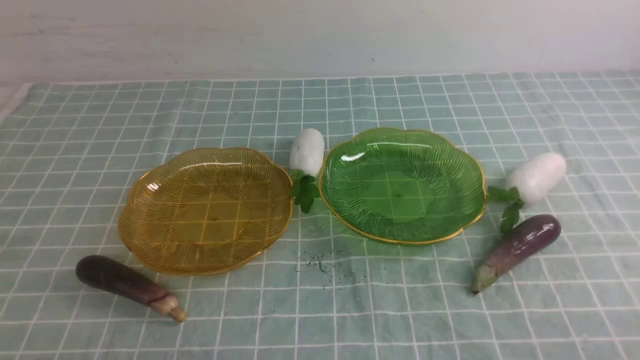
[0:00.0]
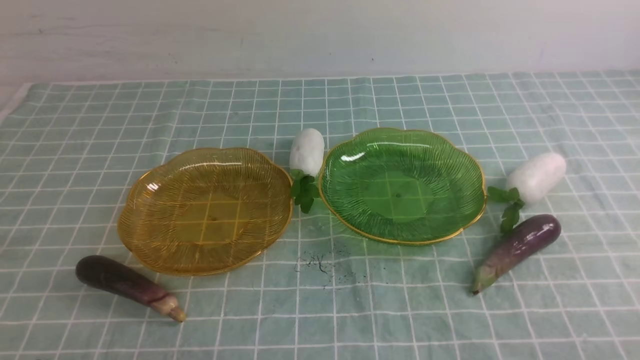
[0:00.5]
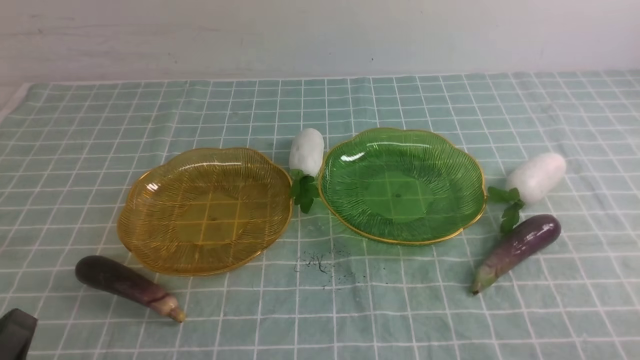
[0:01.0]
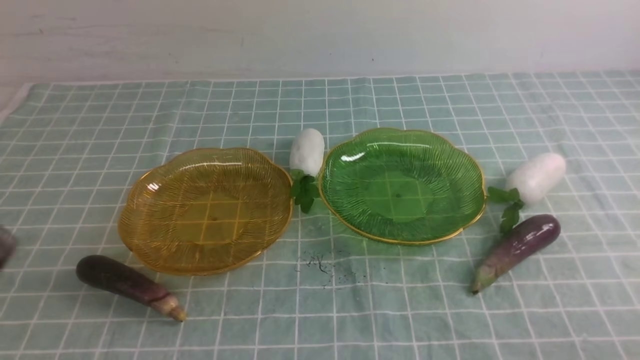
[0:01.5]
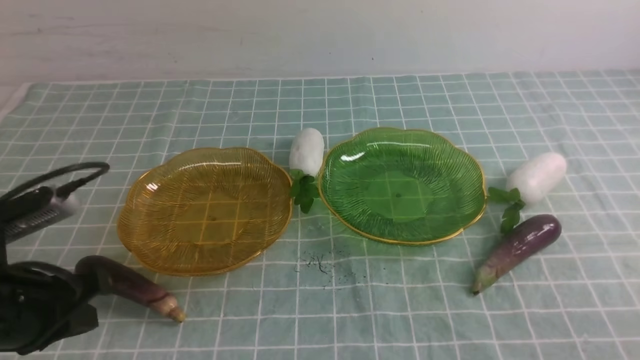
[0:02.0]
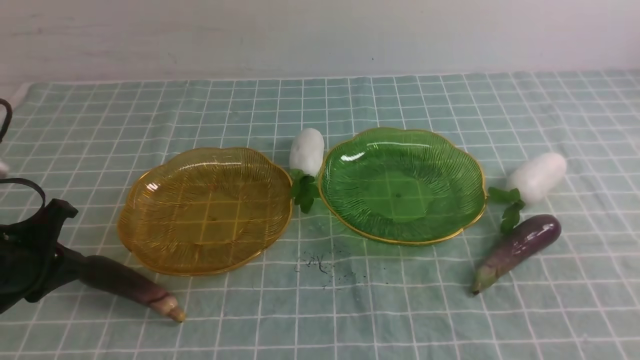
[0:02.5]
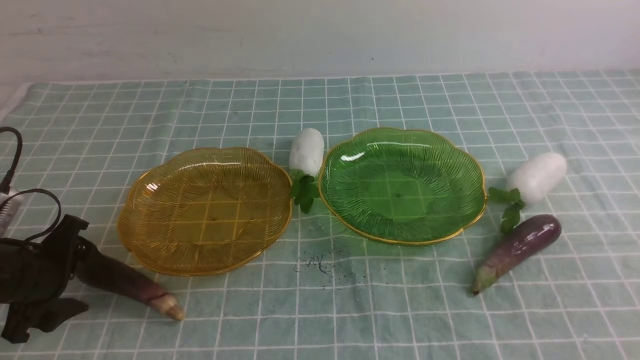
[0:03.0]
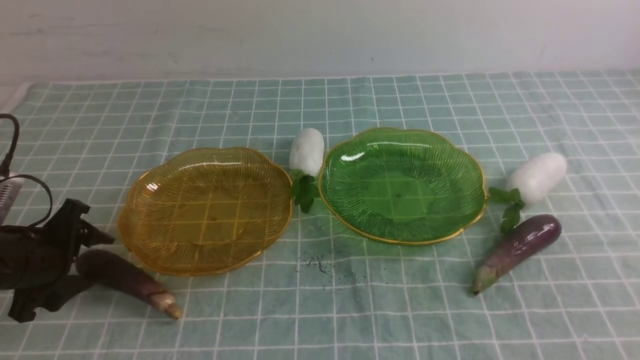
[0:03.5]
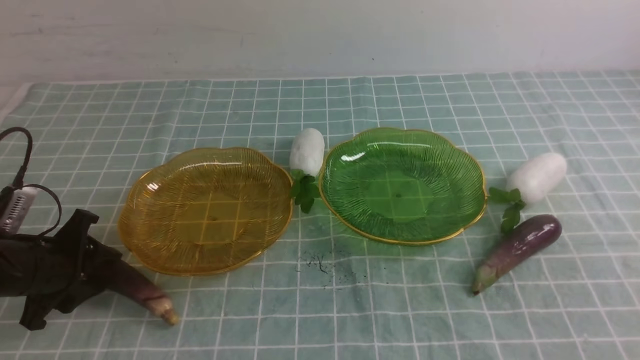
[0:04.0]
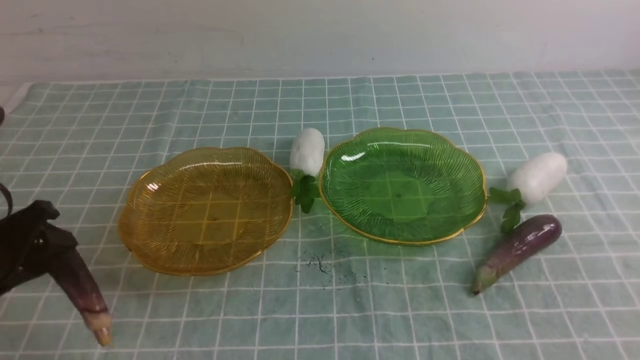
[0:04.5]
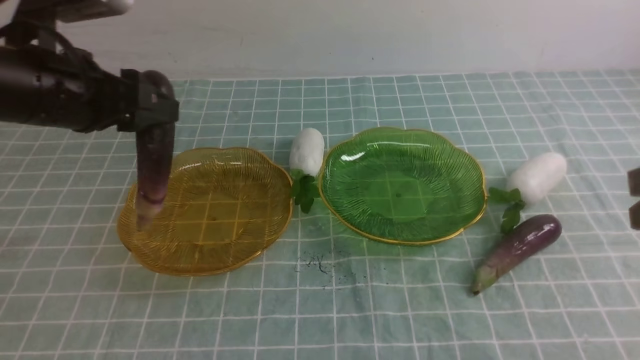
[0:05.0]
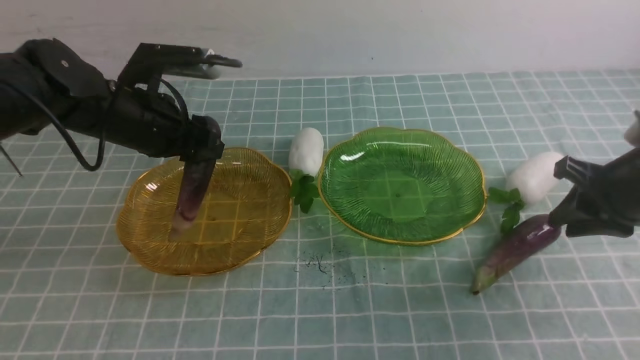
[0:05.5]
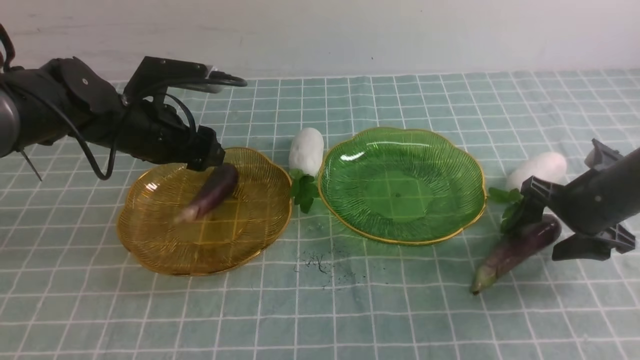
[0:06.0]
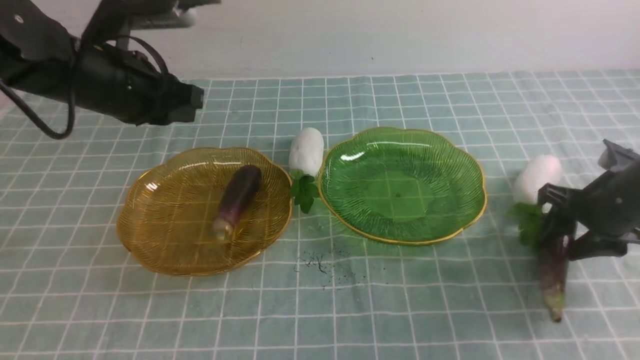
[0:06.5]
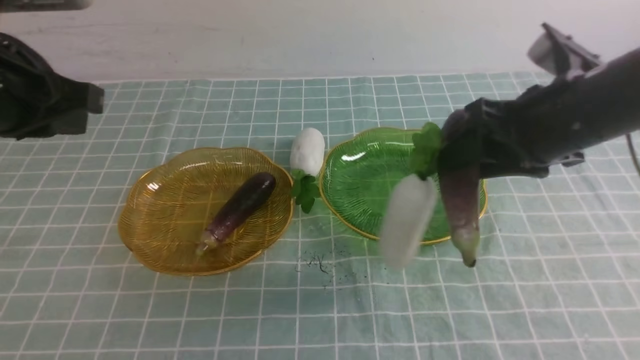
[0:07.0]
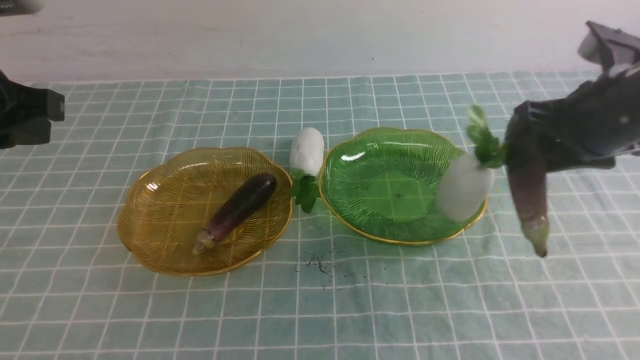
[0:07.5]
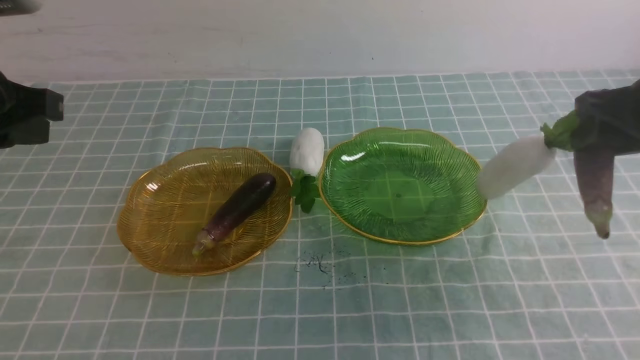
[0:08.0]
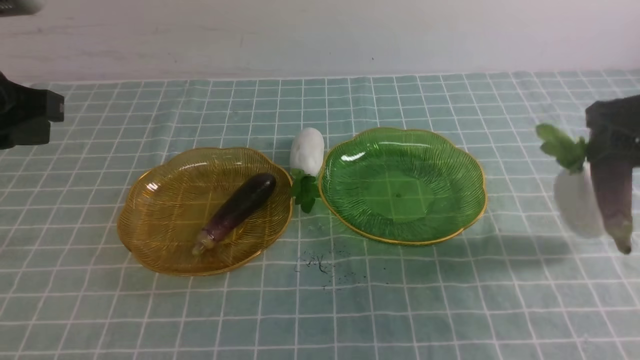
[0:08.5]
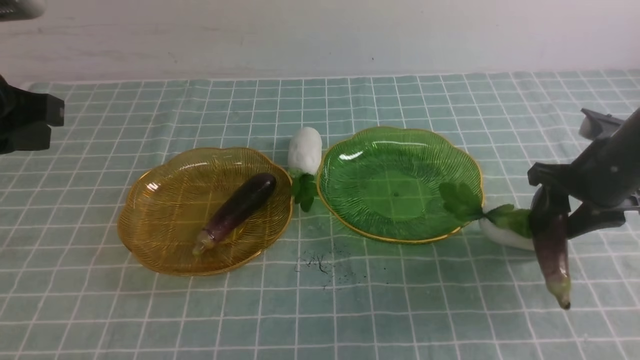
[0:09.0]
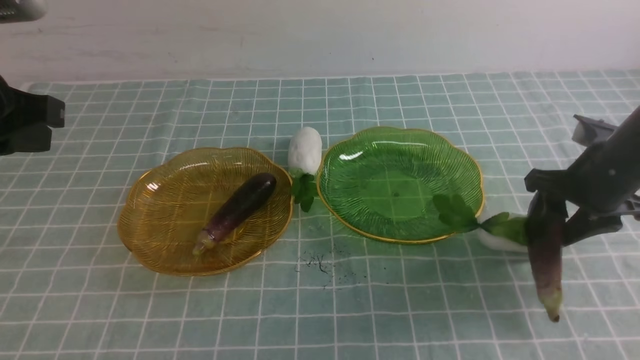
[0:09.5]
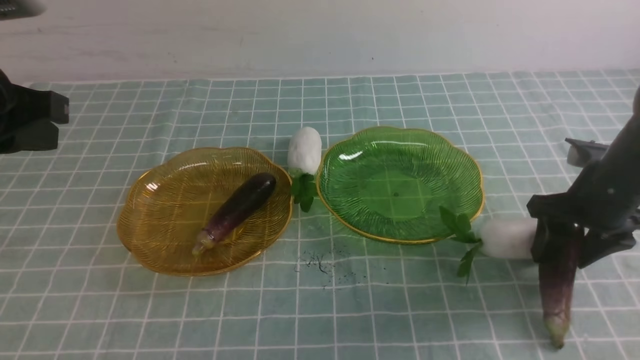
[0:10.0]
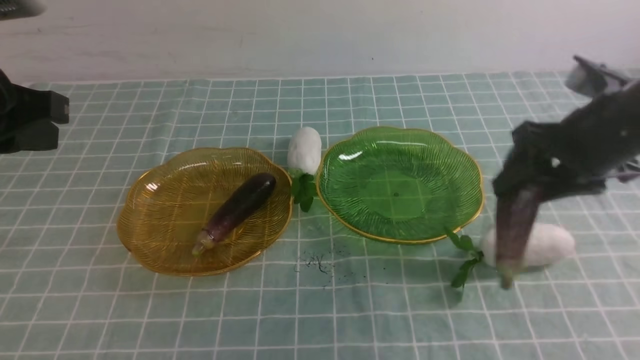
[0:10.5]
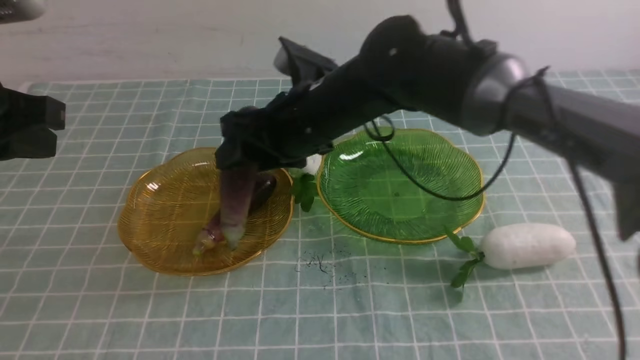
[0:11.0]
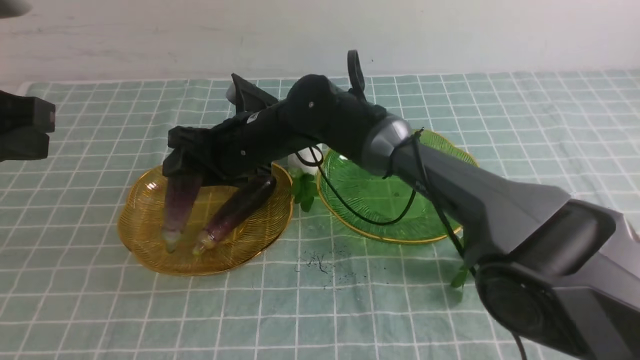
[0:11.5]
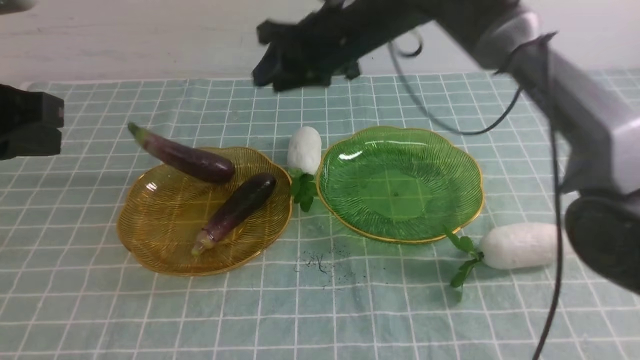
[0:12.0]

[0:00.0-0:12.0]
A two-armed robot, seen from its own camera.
Step, 0:00.0 to 0:06.0: use the left arm to grab an eggplant and put it into the left plate.
Step, 0:06.5 to 0:11.5: use the right arm to grab an eggplant and put it into the left plate.
0:00.0 to 0:02.0: The left gripper shifts roughly 15 cm forward and upward.
0:02.0 to 0:04.0: The left gripper goes some 15 cm downward, forward and to the left, and opens up.
0:04.0 to 0:06.0: The left gripper goes roughly 20 cm forward, to the right and upward; the right gripper travels forward and downward by approximately 30 cm, and opens.
0:06.0 to 0:08.0: The left gripper moves backward, upward and to the left, some 20 cm, and closes its fingers, while the right gripper goes some 15 cm upward.
0:08.0 to 0:10.0: The right gripper is displaced downward by about 10 cm.
0:10.0 to 0:12.0: The right gripper moves to the left and upward, about 30 cm.

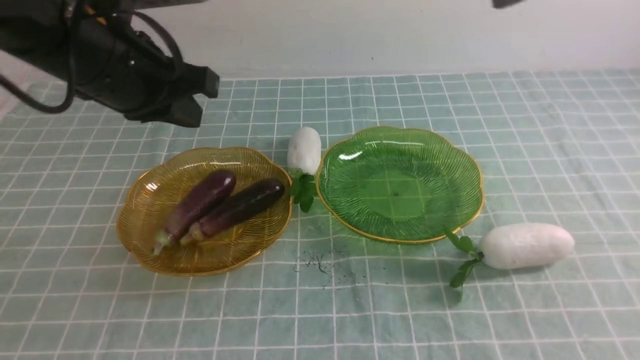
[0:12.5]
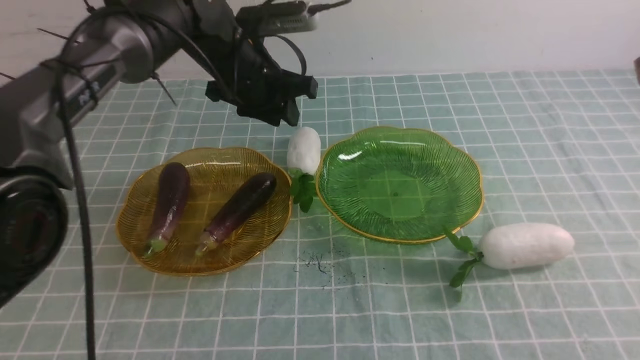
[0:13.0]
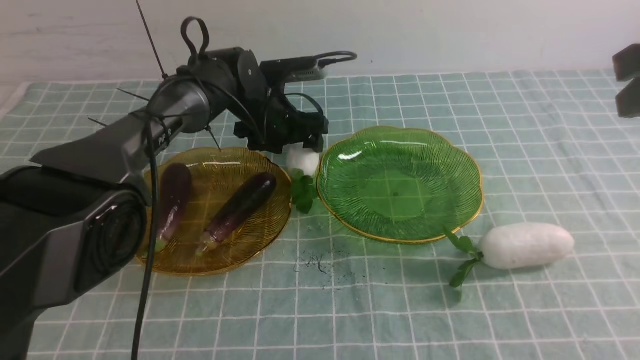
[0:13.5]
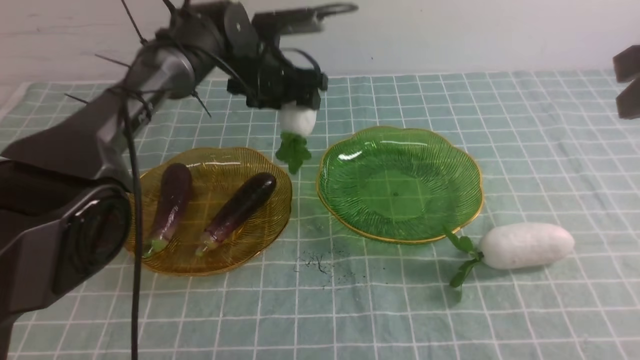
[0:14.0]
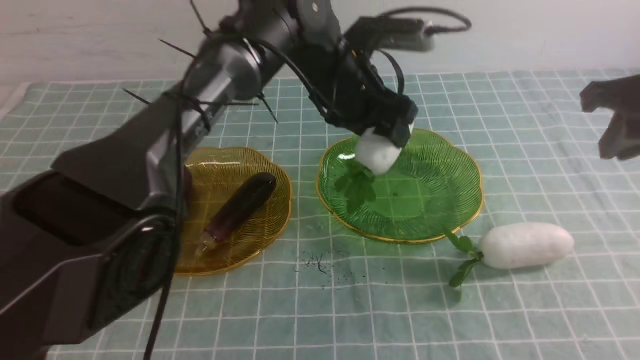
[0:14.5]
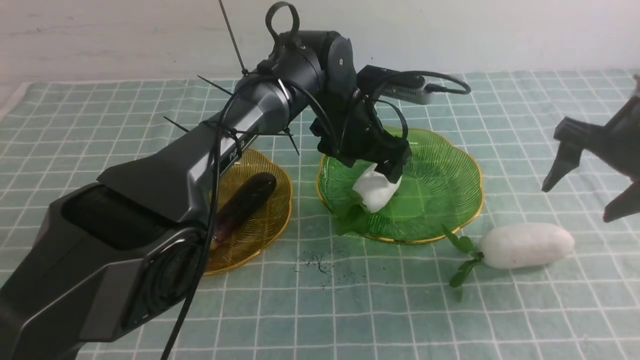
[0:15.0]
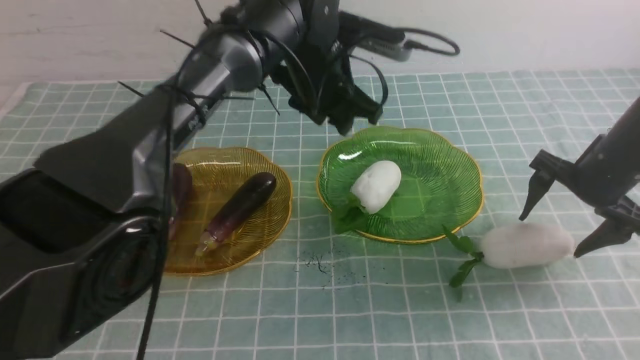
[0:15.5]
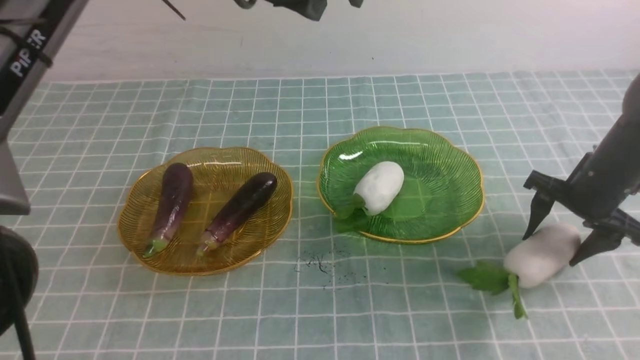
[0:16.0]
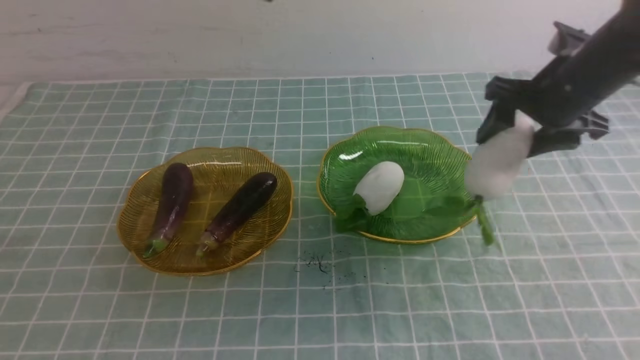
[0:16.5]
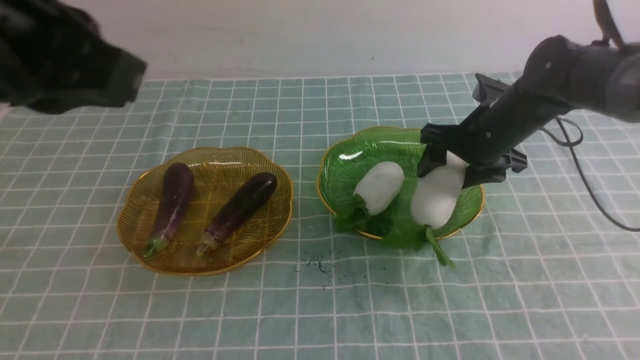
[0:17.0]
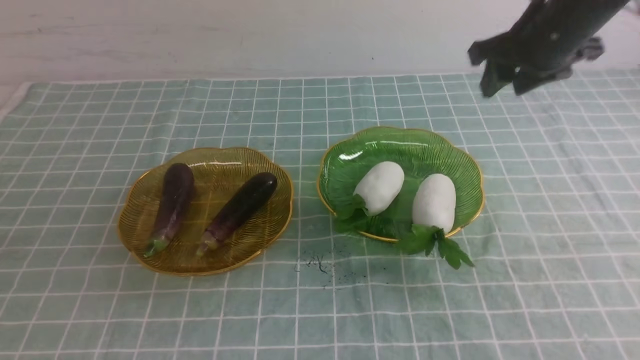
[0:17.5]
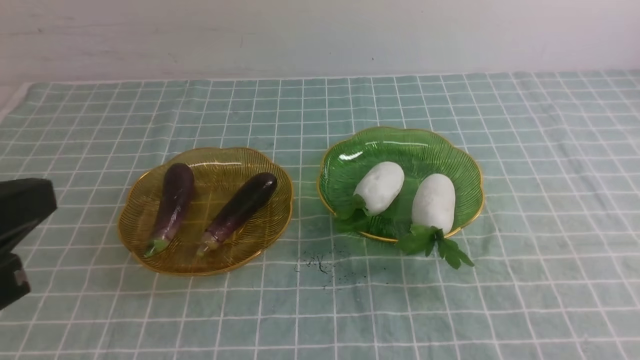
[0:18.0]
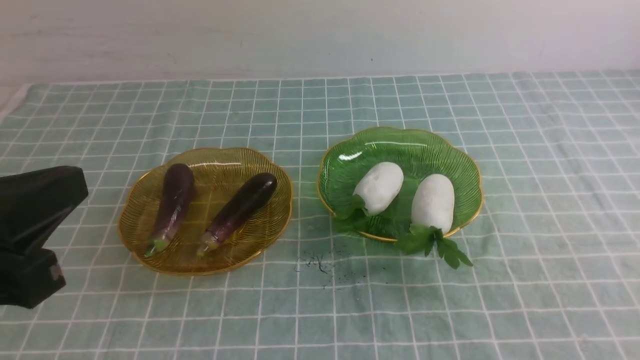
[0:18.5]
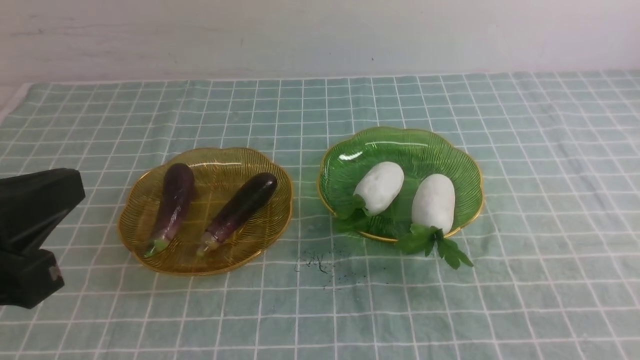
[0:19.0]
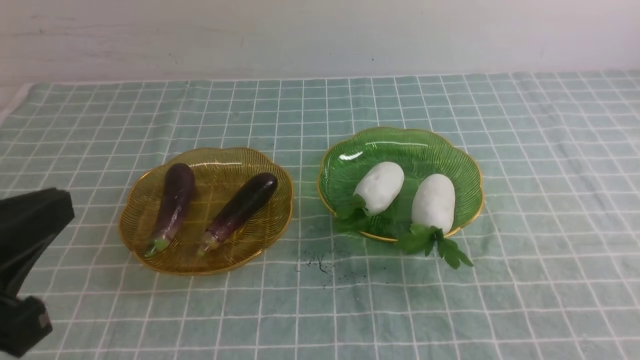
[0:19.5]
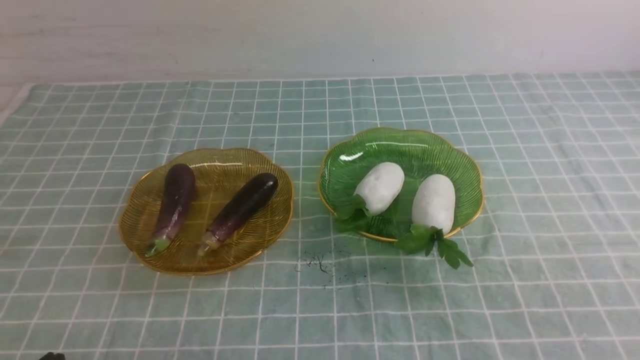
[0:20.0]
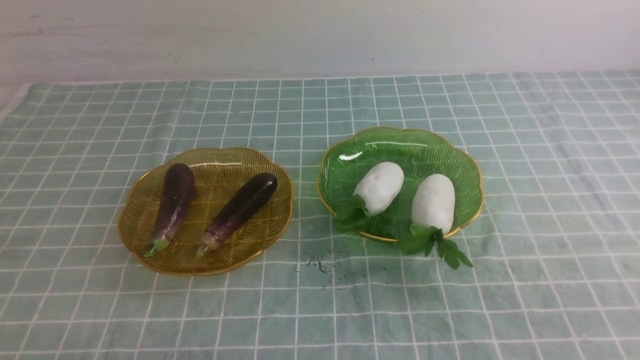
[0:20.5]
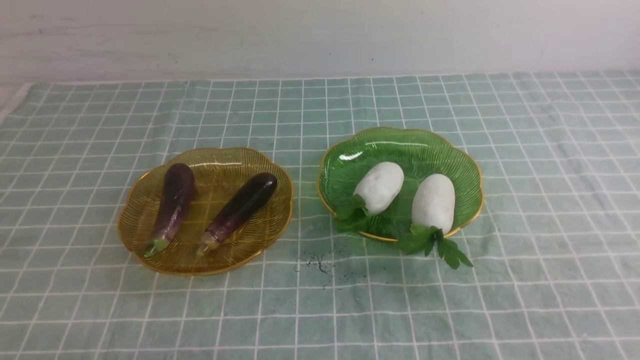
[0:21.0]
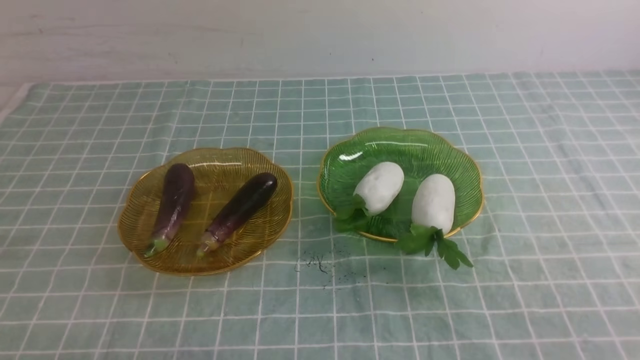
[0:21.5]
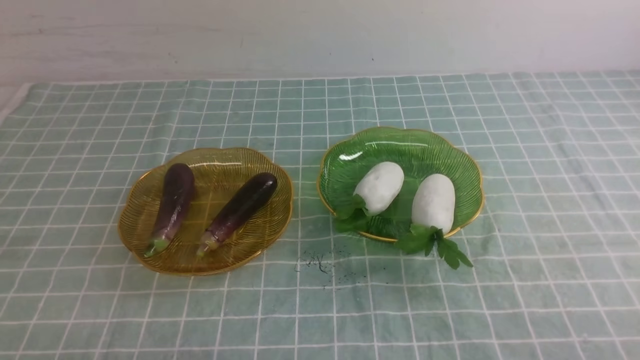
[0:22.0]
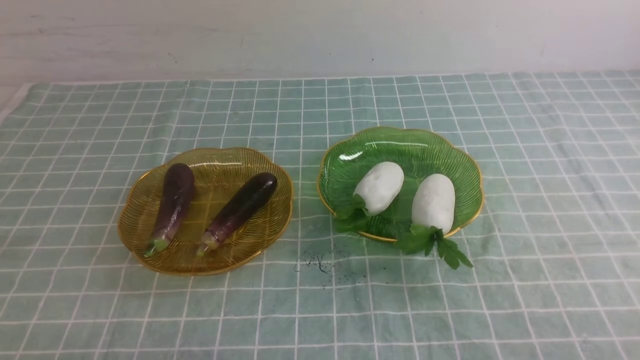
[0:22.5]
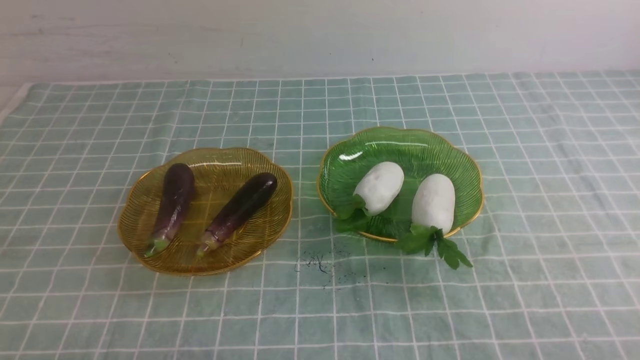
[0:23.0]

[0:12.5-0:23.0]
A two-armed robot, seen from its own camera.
Step, 0:12.5 to 0:15.0: use the left arm to grab a radish and put it into the right plate.
Step, 0:15.5 to 0:17.0: use the right arm to grab a radish and put it into the right plate.
0:12.5 to 0:14.5: The right gripper shifts roughly 15 cm downward and to the right; the left gripper heads to the right, forward and downward, covering roughly 25 cm, and opens its fingers.
0:14.5 to 0:16.5: The right gripper is displaced forward and downward by approximately 15 cm, and opens up, while the left gripper shifts about 25 cm upward, backward and to the left, and closes.
0:16.5 to 0:19.0: The right gripper goes some 40 cm backward, and closes up, while the left gripper travels backward, to the left and downward by some 25 cm.
0:19.0 to 0:21.0: The left gripper travels downward by about 20 cm.
